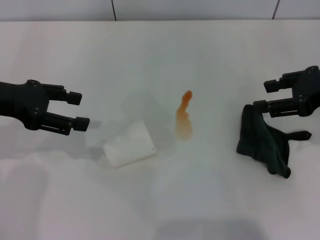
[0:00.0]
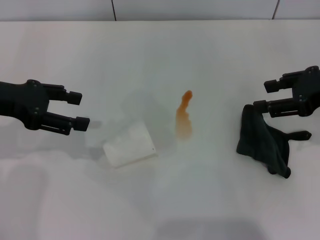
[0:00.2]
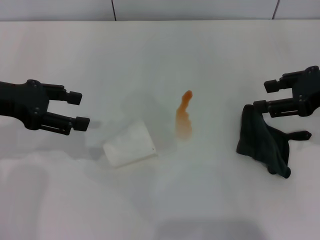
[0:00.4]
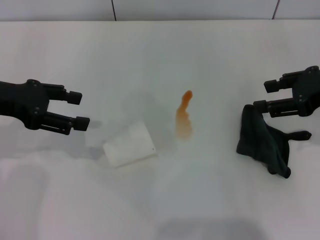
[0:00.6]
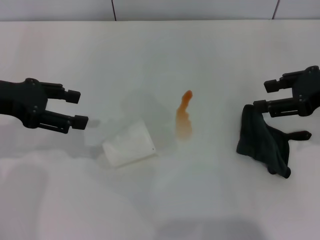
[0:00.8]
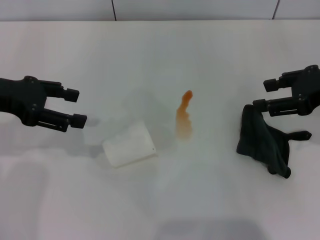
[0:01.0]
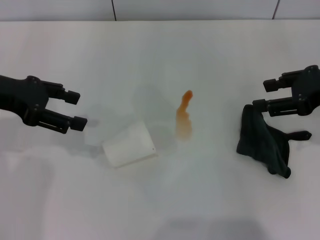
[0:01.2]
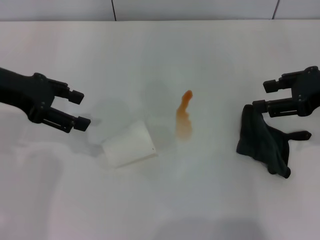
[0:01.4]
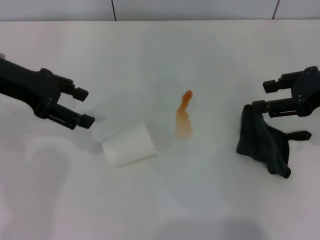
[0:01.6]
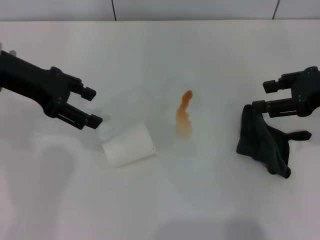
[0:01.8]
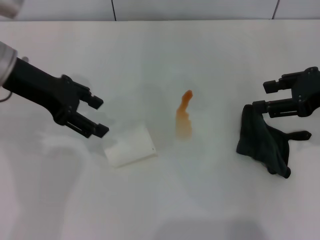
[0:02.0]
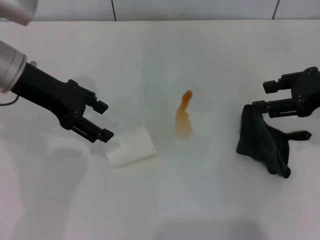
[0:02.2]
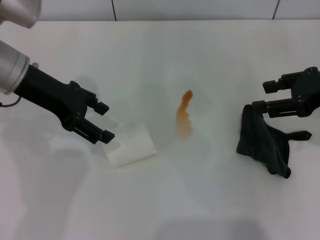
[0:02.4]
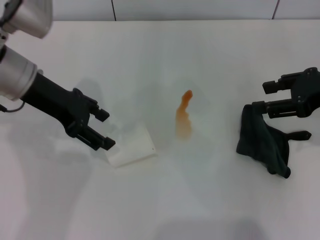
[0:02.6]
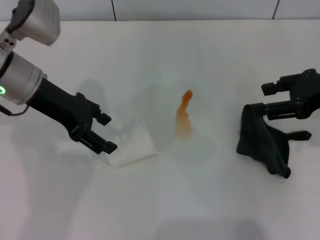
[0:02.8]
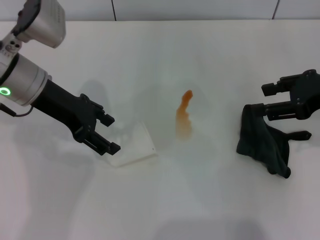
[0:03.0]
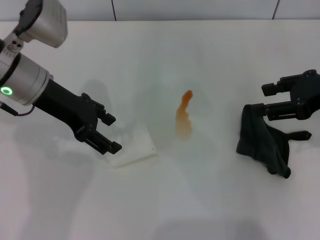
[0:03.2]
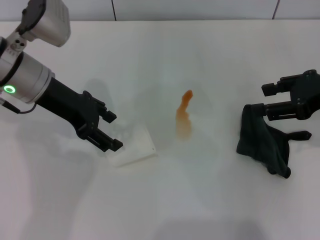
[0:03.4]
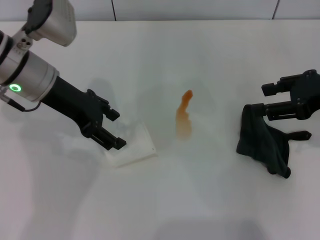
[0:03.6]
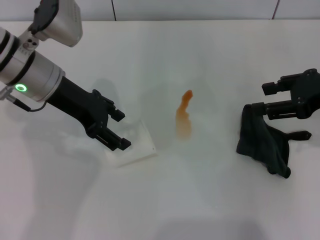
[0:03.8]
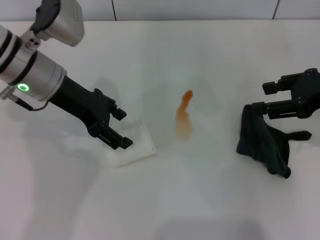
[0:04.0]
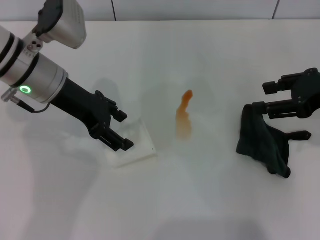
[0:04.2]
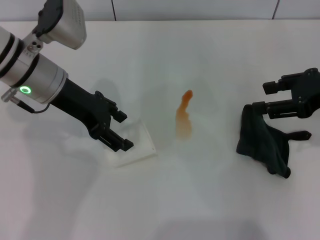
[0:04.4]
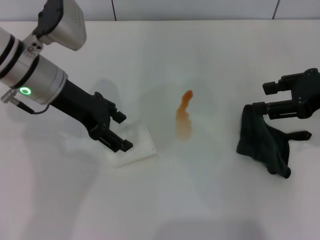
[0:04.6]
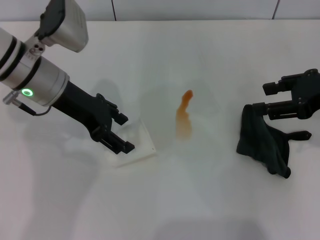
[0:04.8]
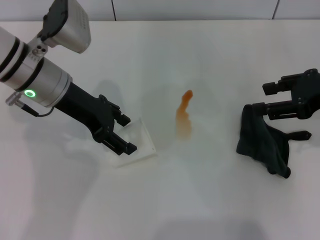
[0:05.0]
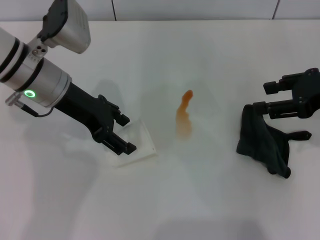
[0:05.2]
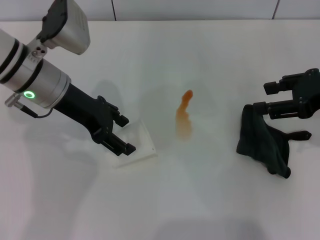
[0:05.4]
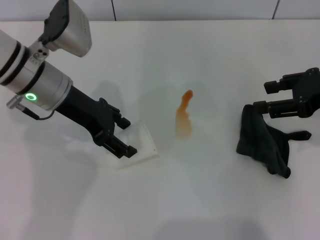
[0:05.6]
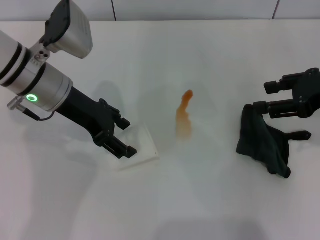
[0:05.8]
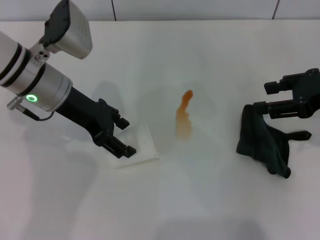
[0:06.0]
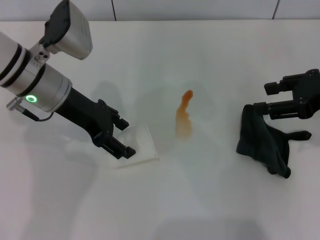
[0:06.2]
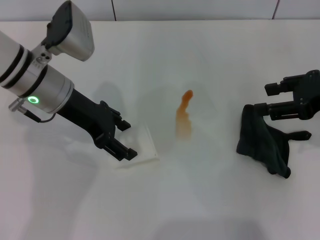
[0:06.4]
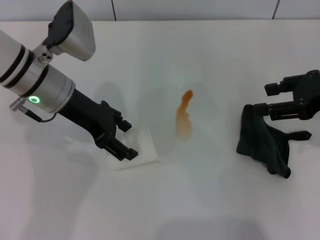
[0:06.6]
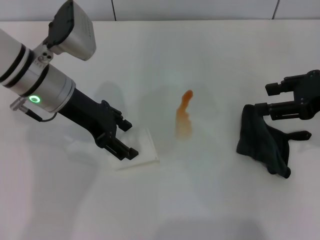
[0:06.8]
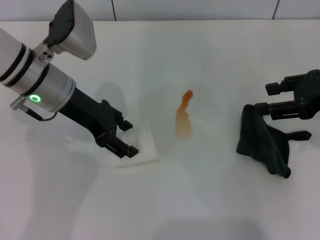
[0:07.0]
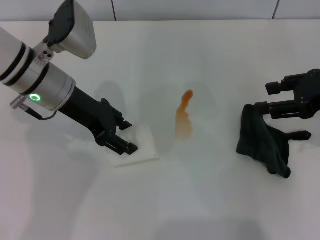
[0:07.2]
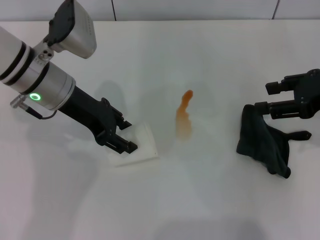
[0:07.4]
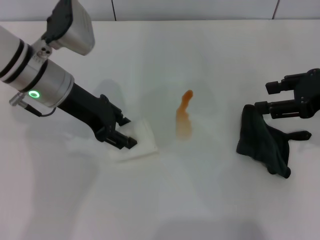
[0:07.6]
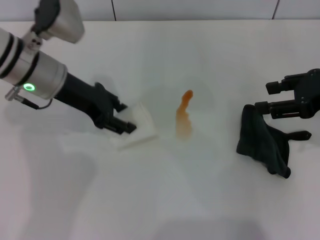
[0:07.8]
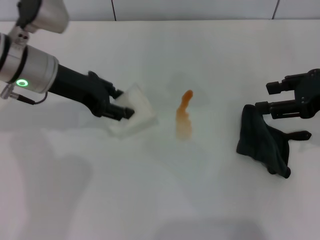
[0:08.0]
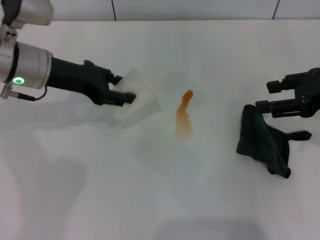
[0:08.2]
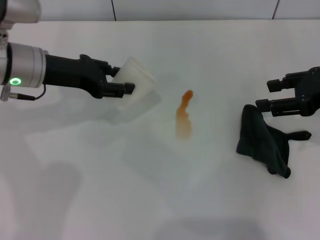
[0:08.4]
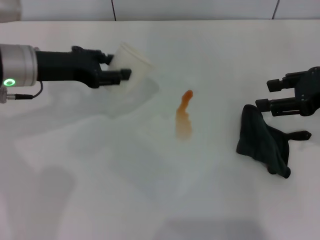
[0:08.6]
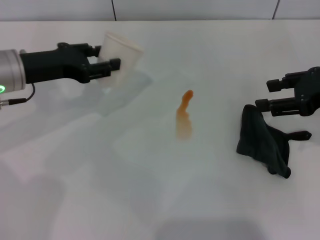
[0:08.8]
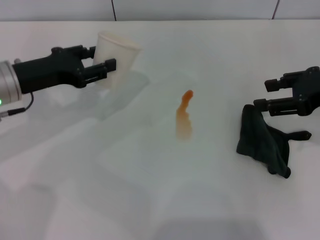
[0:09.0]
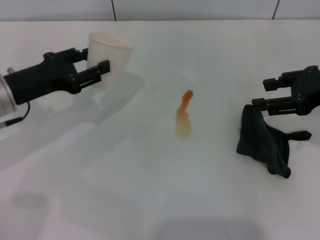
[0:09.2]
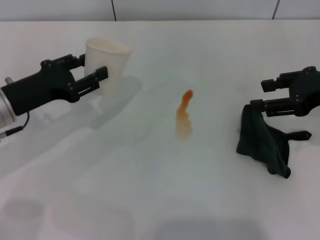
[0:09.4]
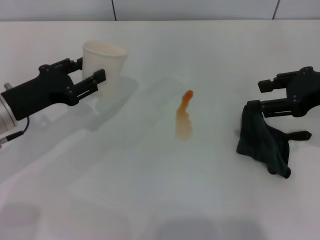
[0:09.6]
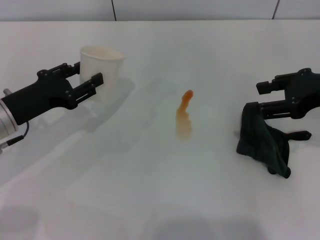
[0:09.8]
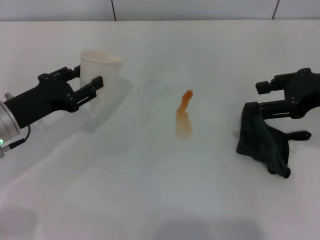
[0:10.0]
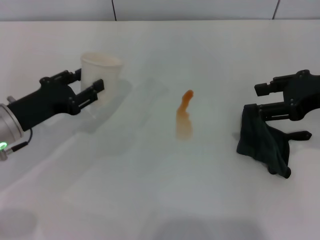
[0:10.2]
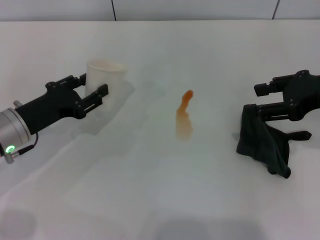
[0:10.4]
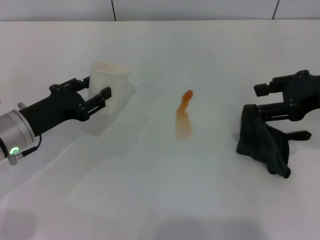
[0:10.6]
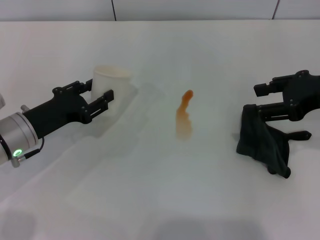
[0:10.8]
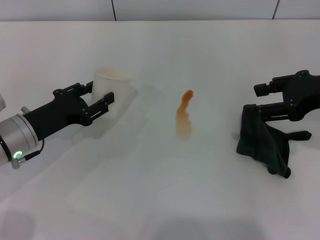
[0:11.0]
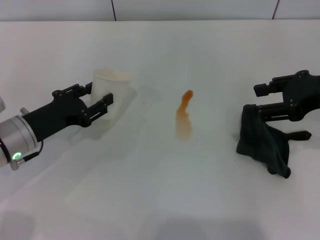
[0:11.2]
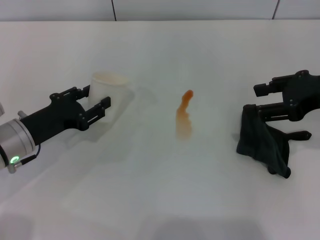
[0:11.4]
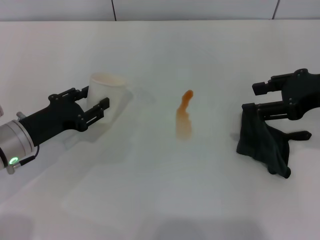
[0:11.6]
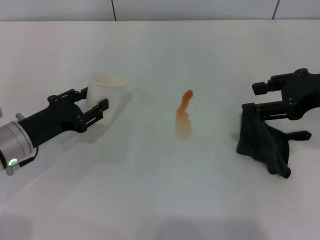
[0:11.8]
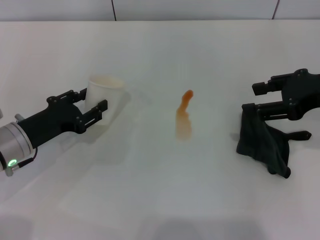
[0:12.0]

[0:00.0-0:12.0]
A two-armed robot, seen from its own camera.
Step, 0:00.0 to 0:07.0: Grasp the paper cup with the left gripper.
0:00.0 to 0:01.6: The left gripper ends up approximately 5 cm from where it was.
0:01.6 to 0:03.0: The left gripper shifts approximately 5 cm to the right.
0:03.0 to 0:04.4: The grippers stay close to where they were, moving slightly.
0:04.4 to 0:06.0: Neither gripper changes place.
0:06.0 to 0:07.6: The left gripper closes.
0:07.6 to 0:09.0: The left gripper moves to the left, some 10 cm.
0:09.0 to 0:10.4: The left gripper shifts roughly 5 cm downward.
0:10.4 to 0:12.0: The grippers stay close to where they were, moving slightly.

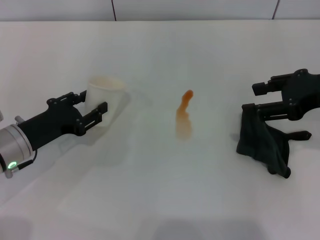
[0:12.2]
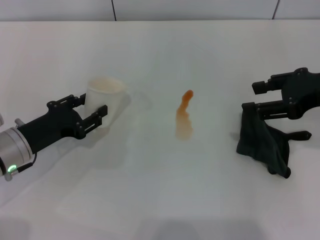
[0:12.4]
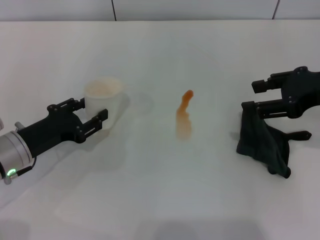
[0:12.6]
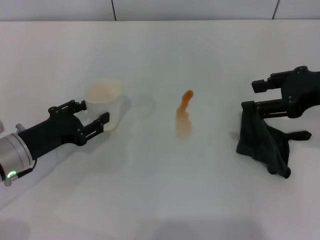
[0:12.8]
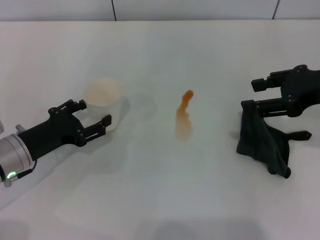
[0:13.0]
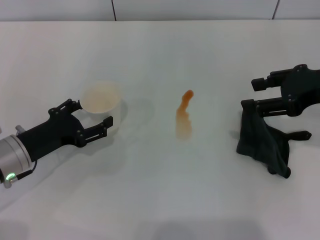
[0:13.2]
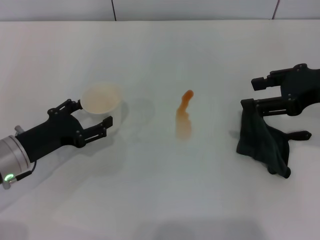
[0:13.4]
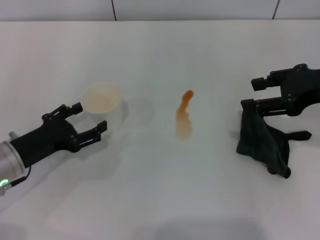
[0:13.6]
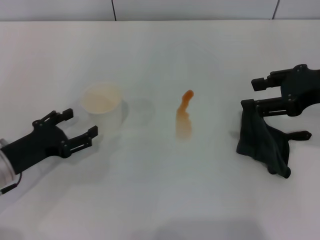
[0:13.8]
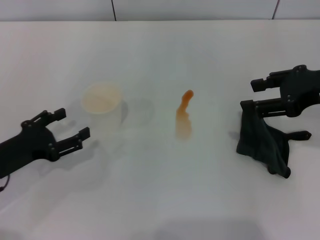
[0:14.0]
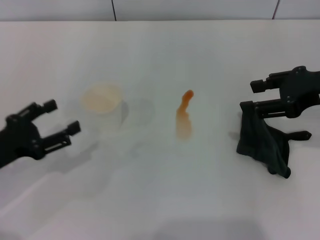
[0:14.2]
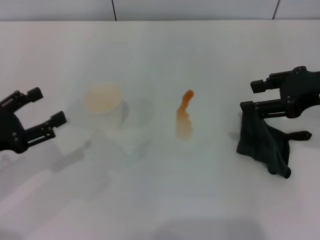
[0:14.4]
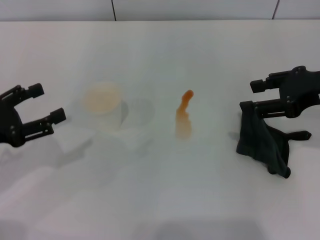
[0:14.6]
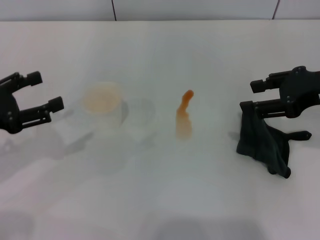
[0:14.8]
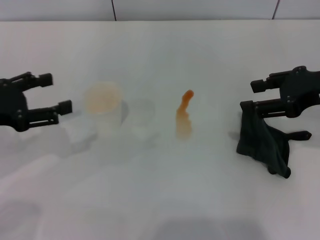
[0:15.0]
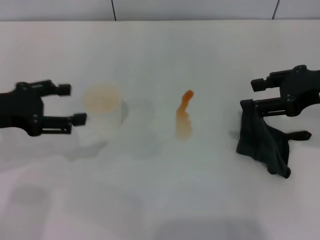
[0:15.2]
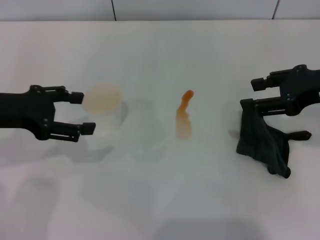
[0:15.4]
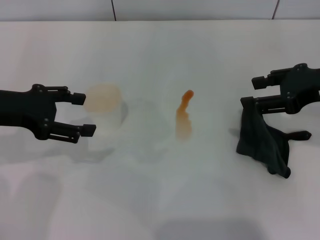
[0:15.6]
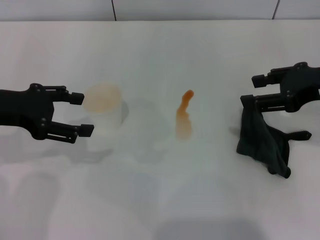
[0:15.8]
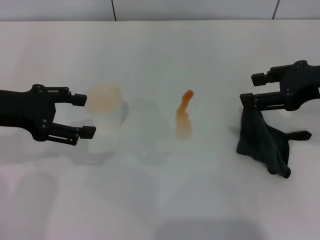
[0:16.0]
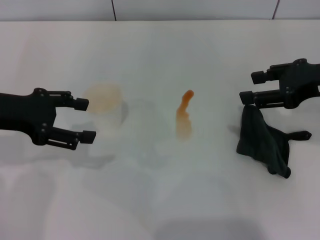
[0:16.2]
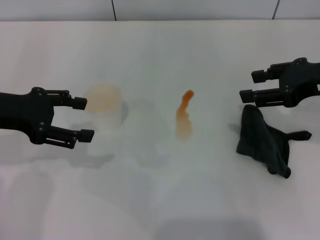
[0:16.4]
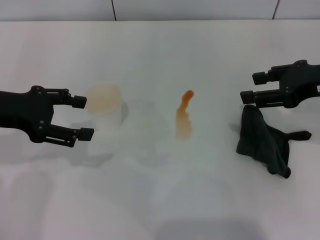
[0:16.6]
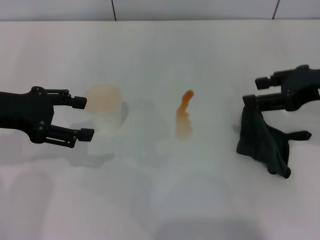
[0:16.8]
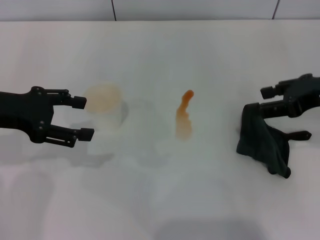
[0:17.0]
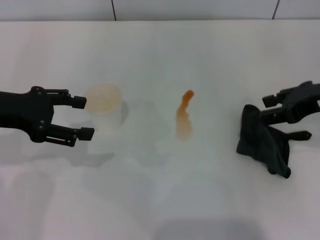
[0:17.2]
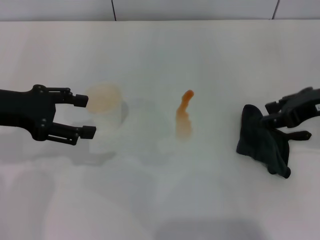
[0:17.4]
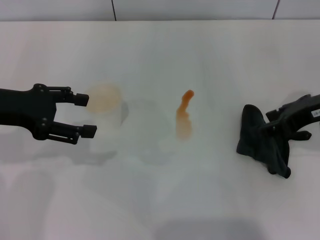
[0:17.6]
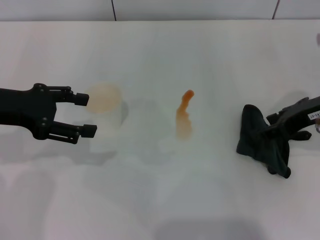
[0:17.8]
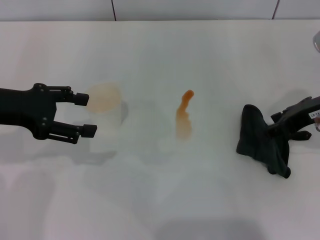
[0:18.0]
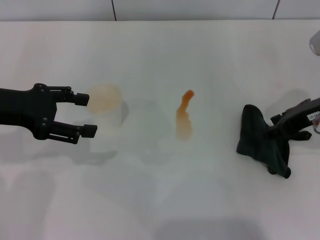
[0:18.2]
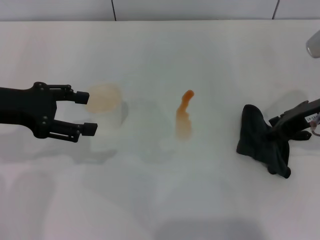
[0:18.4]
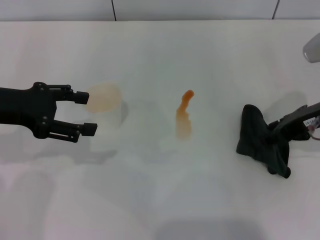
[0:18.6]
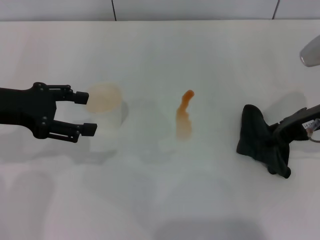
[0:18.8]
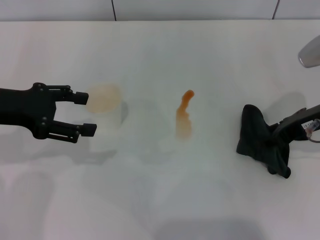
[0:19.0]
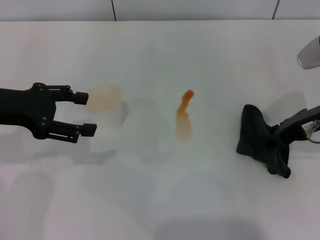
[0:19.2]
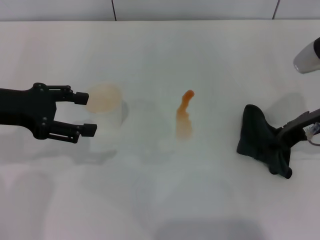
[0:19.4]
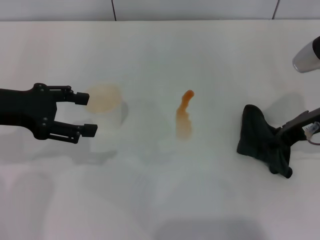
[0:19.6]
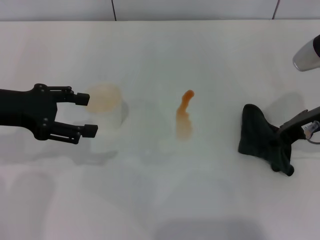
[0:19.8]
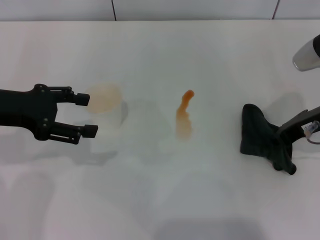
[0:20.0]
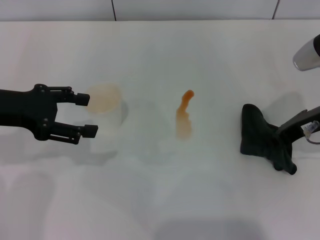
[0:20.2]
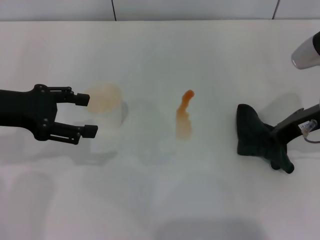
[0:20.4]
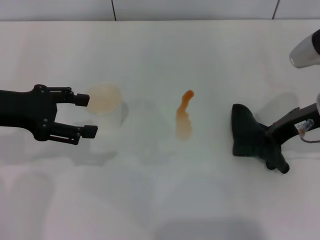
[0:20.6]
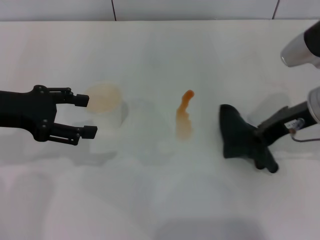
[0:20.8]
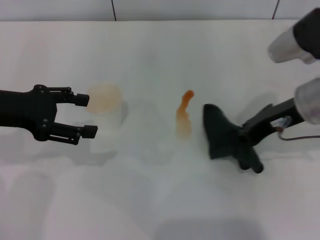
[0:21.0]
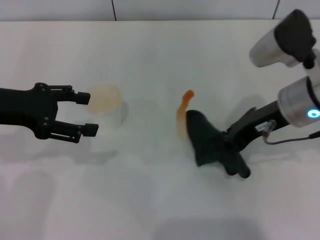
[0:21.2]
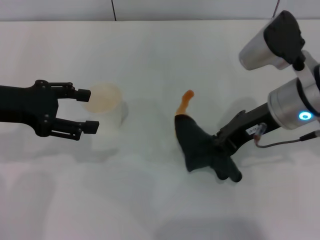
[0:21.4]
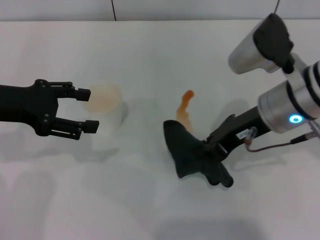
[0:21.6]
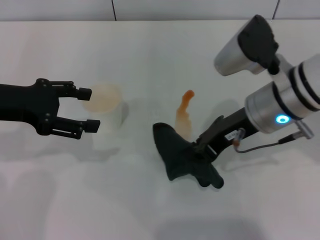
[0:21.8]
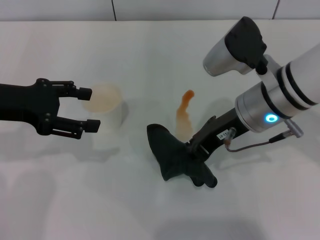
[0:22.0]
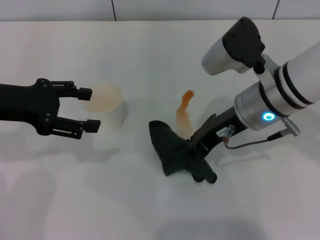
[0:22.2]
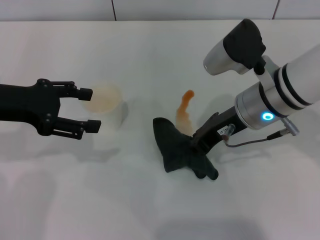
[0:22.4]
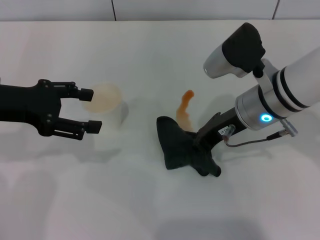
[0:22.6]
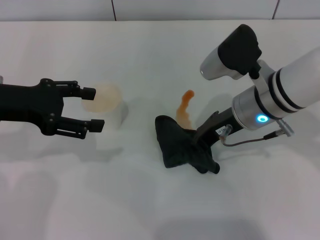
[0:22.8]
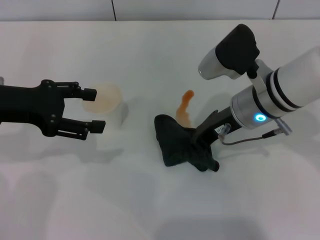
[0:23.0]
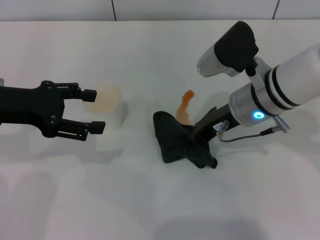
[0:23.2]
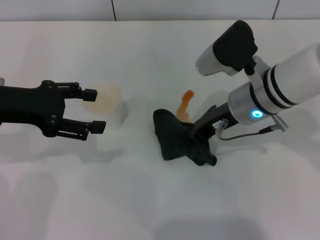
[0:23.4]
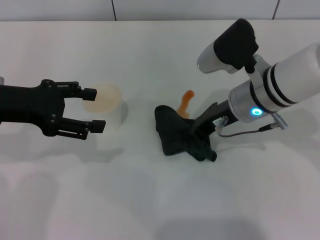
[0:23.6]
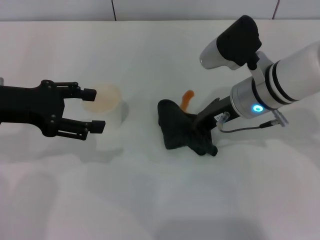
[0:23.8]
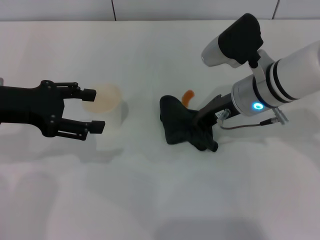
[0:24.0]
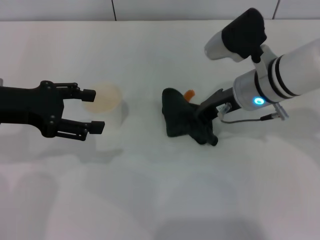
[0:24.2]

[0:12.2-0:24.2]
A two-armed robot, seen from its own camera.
Step, 0:14.0 to 0:20.2: Grasp the rag with the right gripper.
0:12.2 to 0:13.8: The left gripper opens.
0:13.8 to 0:15.2: The left gripper travels upward by about 10 cm.
0:15.2 to 0:16.6: The grippers move only a little.
0:18.2 to 0:19.8: The grippers stay close to where they were, moving slightly.
0:19.8 to 0:21.2: The right gripper moves to the left, about 5 cm, and closes.
0:21.2 to 0:22.6: The right gripper changes place by roughly 5 cm.
0:22.6 to 0:24.2: The grippers move only a little.
